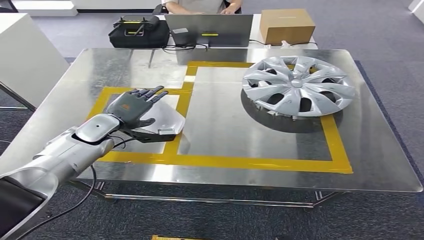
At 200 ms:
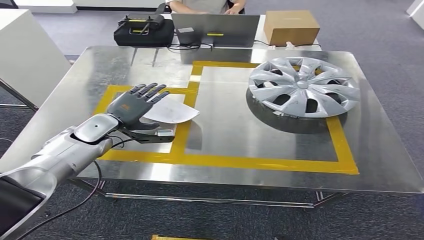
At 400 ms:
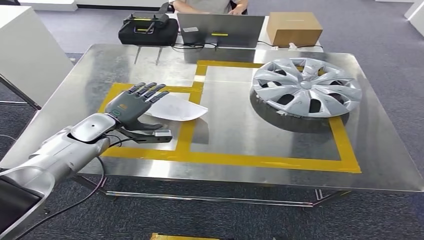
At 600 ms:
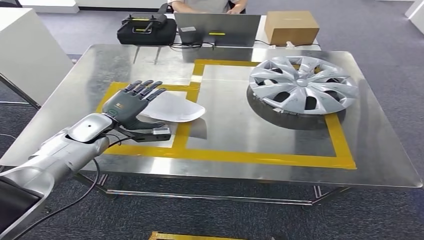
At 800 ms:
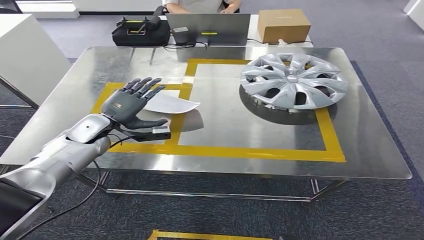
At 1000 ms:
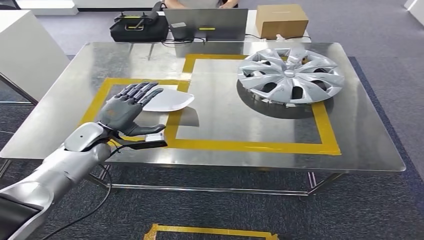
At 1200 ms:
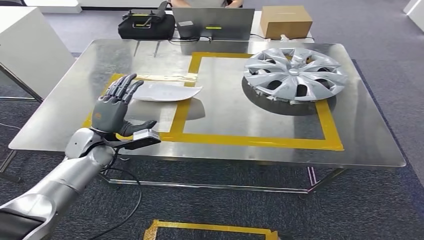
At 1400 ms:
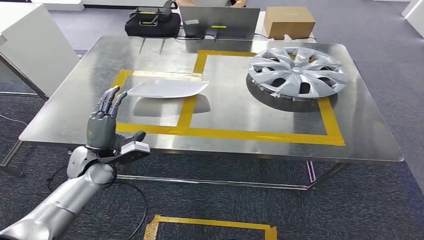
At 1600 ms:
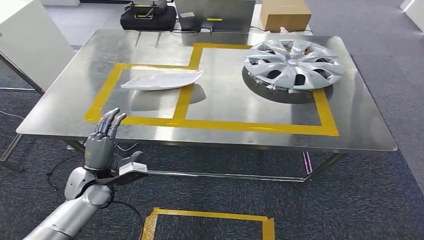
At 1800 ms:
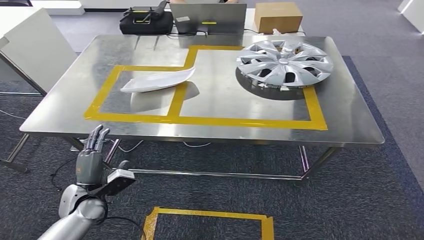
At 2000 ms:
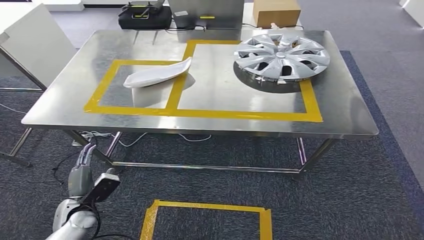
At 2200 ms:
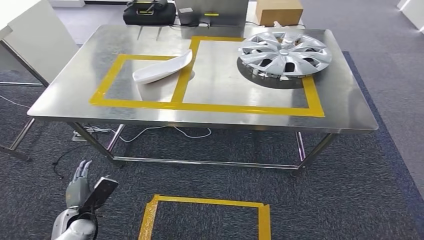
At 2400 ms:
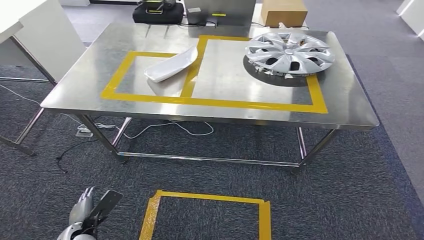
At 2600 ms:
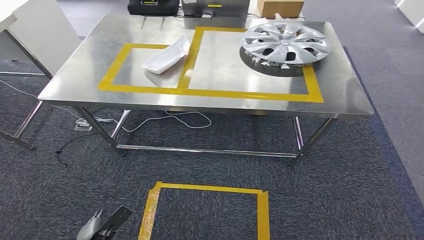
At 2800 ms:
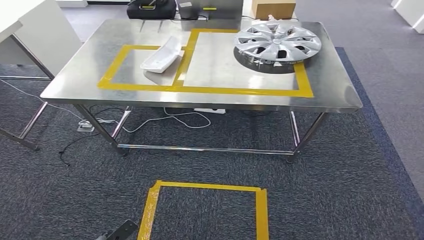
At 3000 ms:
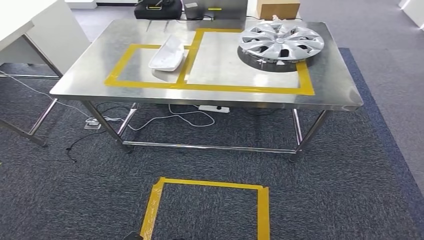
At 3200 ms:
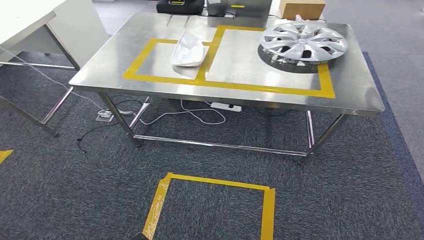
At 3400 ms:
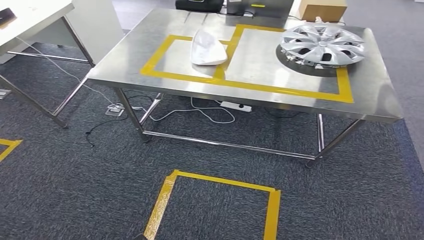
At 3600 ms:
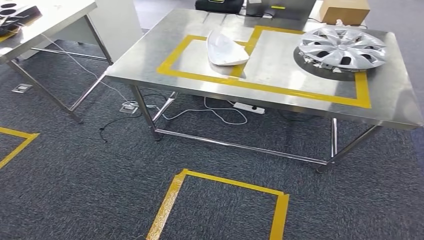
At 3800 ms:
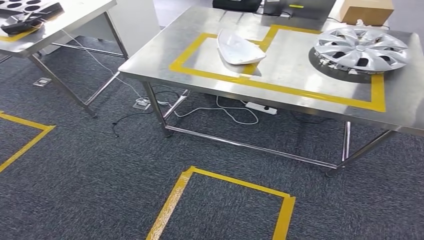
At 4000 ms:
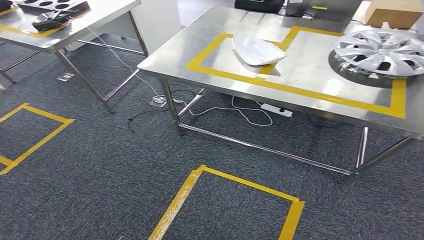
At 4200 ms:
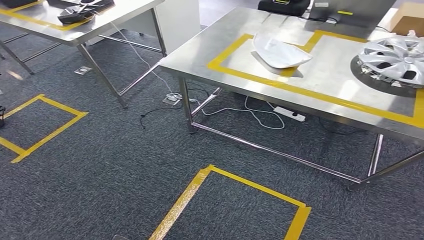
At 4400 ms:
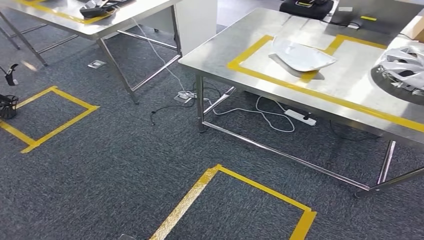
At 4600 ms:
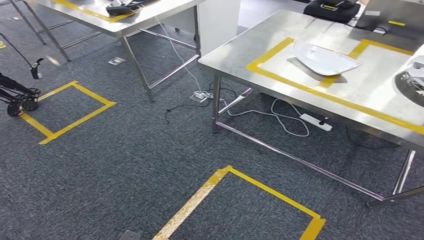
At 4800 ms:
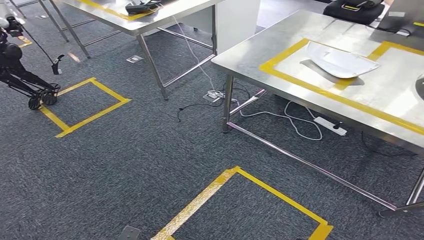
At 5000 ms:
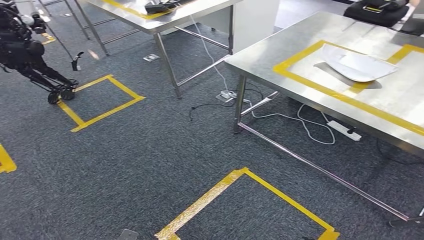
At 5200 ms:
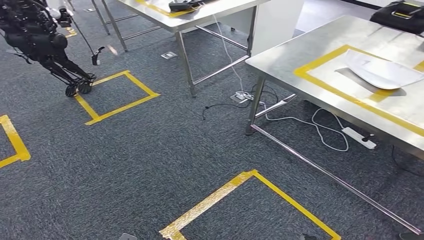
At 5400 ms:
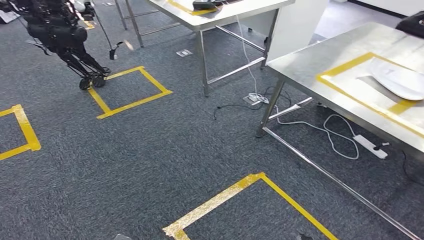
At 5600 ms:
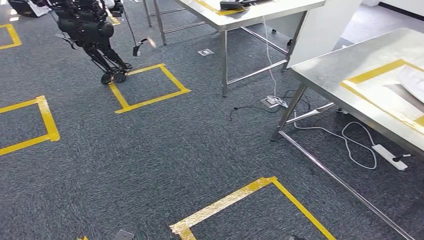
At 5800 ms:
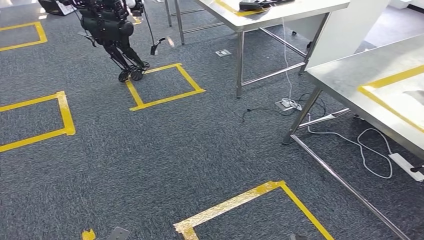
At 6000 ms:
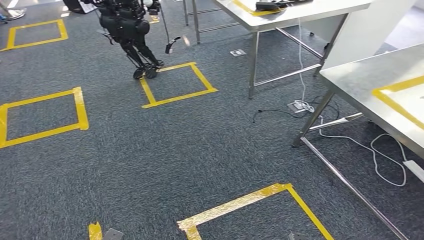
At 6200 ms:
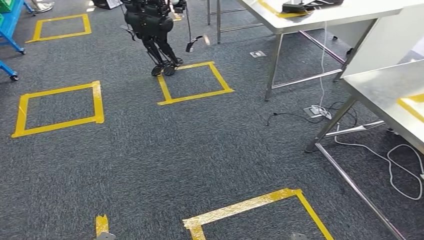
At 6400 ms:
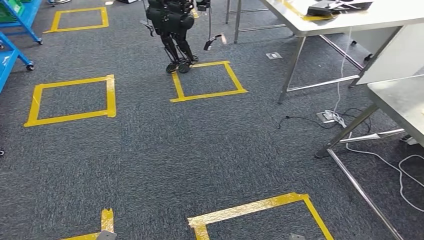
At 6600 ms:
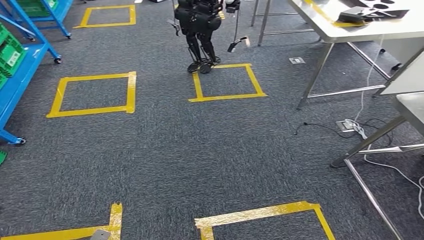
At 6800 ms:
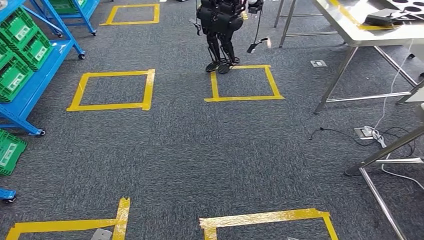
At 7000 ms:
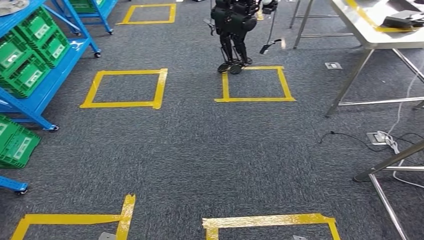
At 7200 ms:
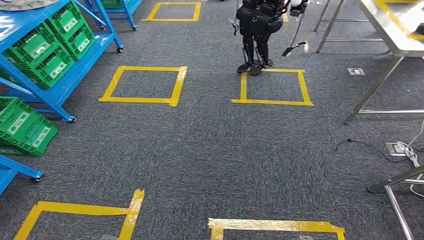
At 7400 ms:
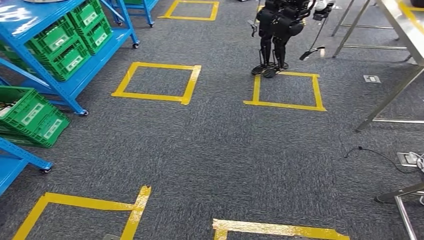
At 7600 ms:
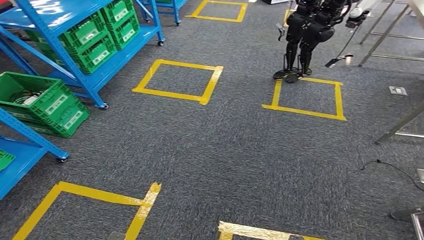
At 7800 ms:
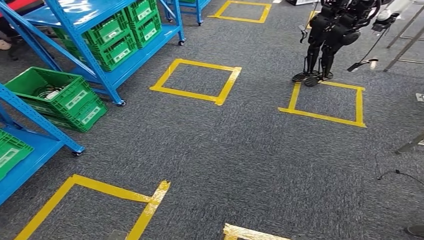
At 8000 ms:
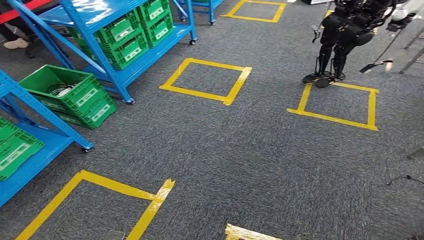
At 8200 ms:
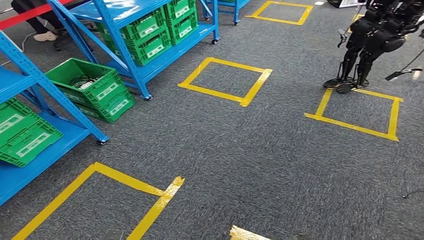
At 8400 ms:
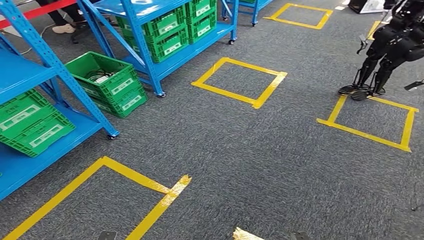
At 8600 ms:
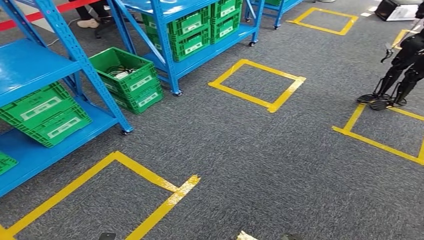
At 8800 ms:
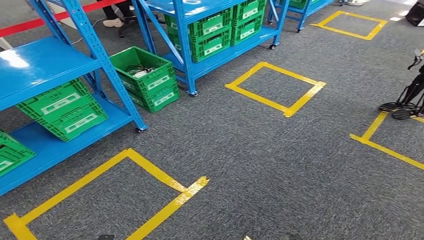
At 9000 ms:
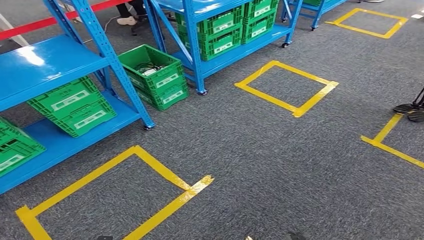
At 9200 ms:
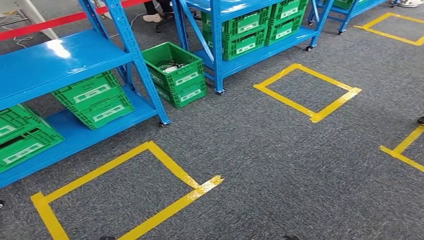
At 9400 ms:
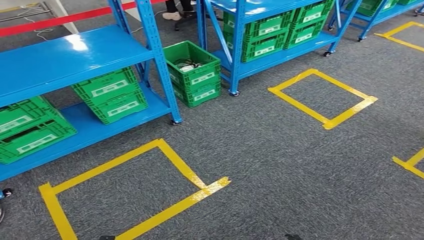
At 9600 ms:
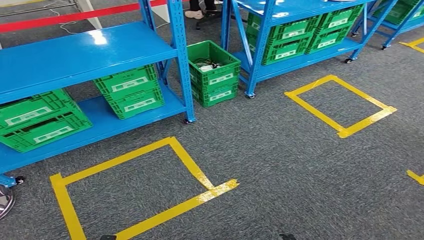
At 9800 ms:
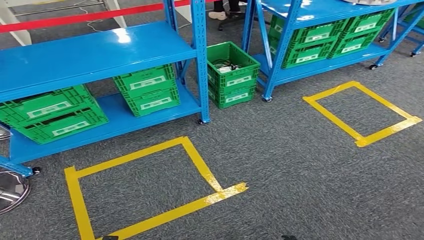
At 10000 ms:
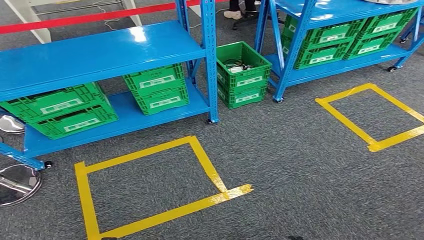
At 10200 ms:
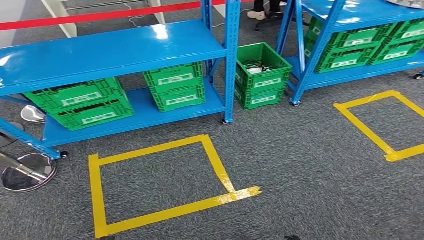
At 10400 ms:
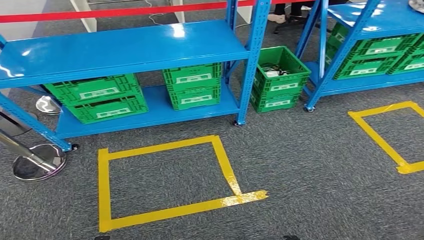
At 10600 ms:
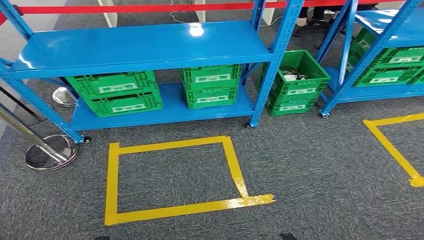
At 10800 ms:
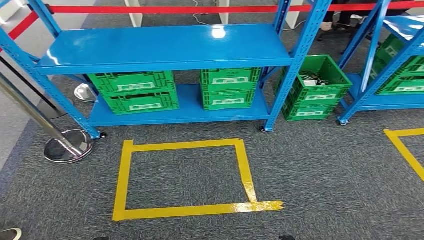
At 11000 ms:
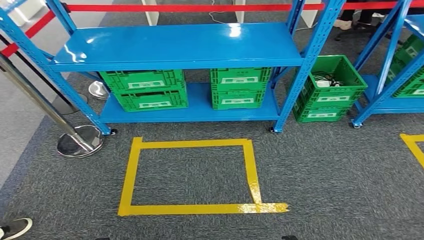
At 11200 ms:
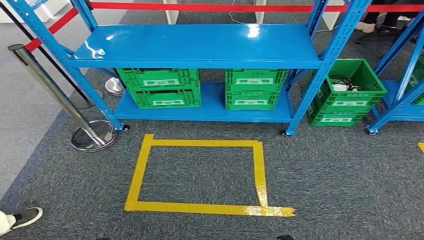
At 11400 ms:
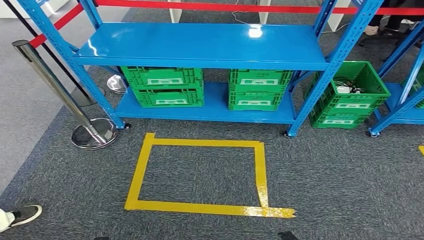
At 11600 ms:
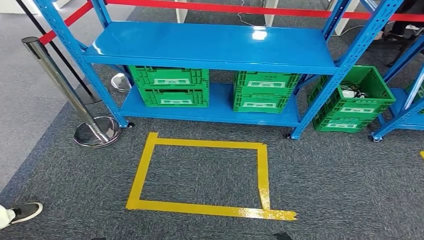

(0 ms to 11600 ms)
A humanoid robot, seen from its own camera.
Step, 2200 ms - 11600 ms: Return to the initial position at the workbench.
